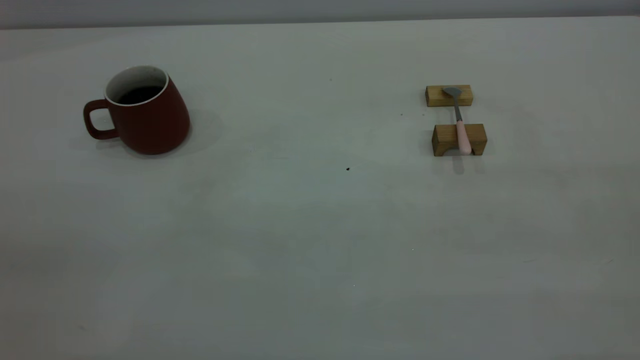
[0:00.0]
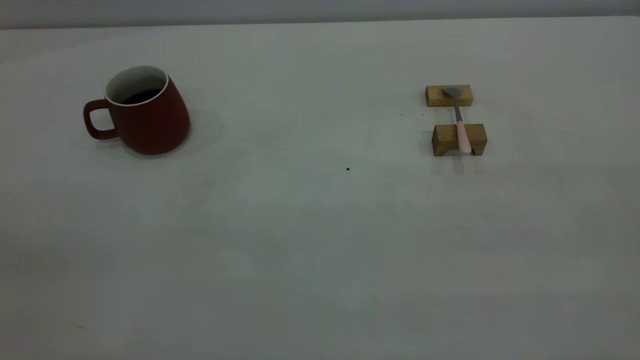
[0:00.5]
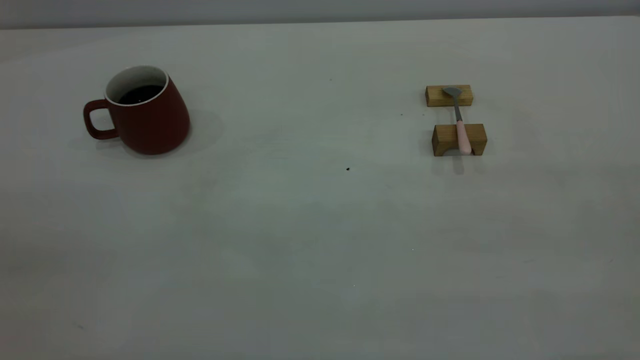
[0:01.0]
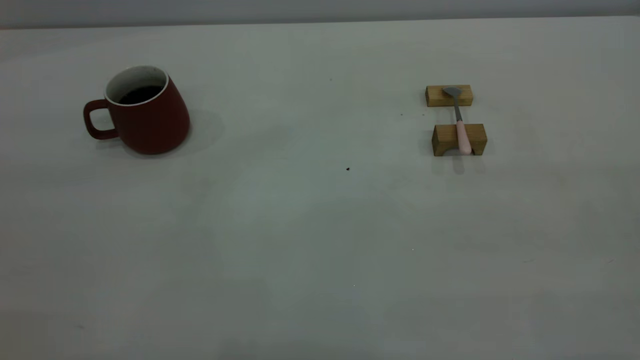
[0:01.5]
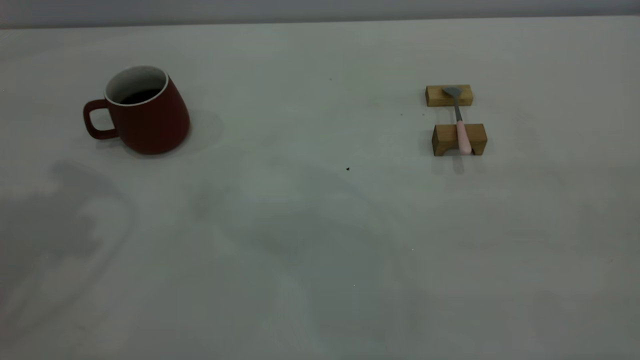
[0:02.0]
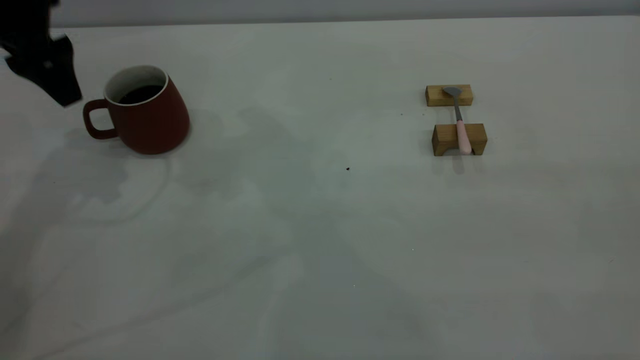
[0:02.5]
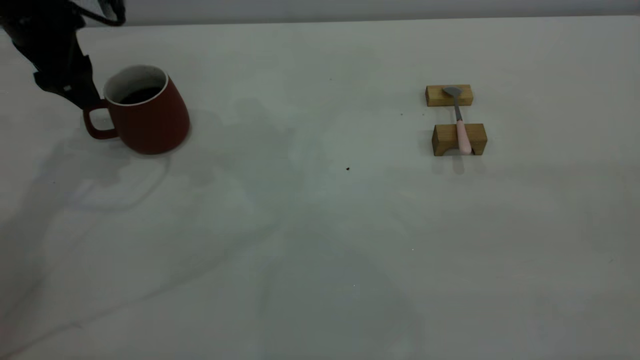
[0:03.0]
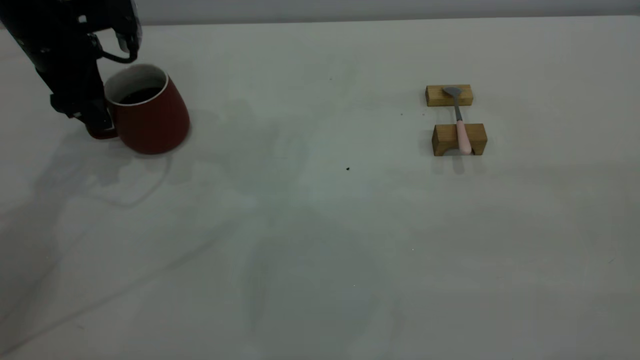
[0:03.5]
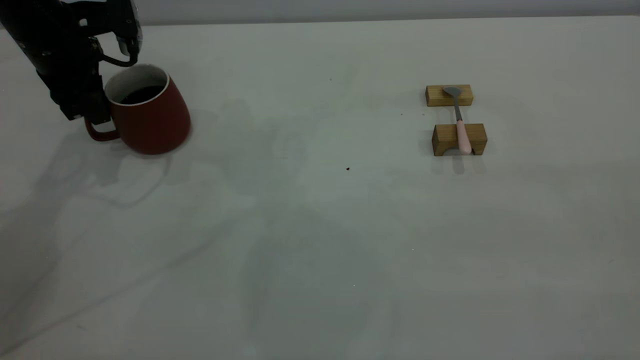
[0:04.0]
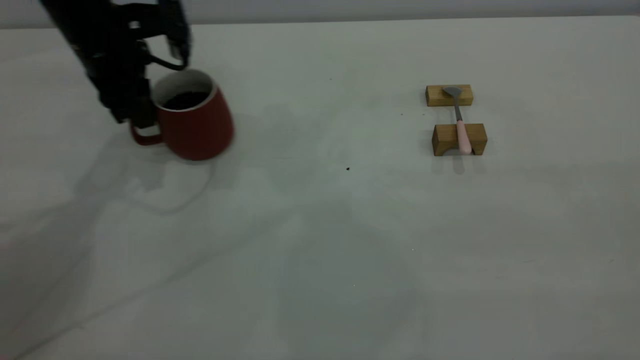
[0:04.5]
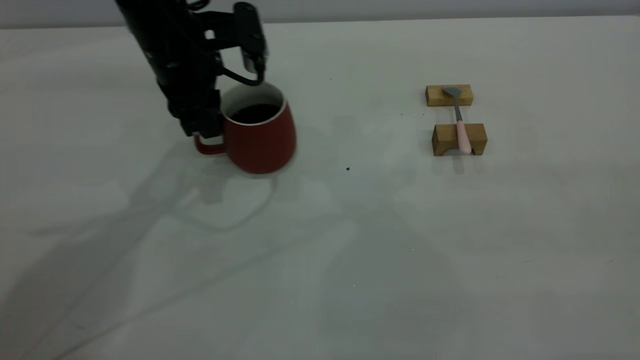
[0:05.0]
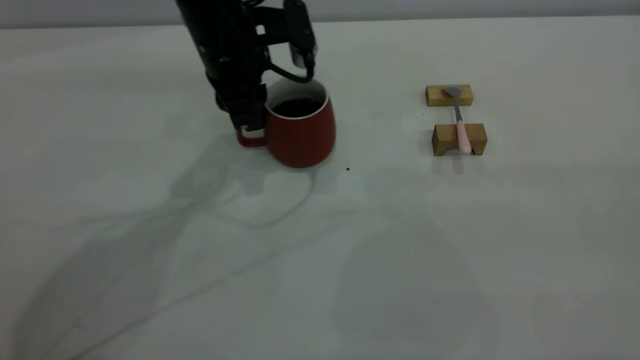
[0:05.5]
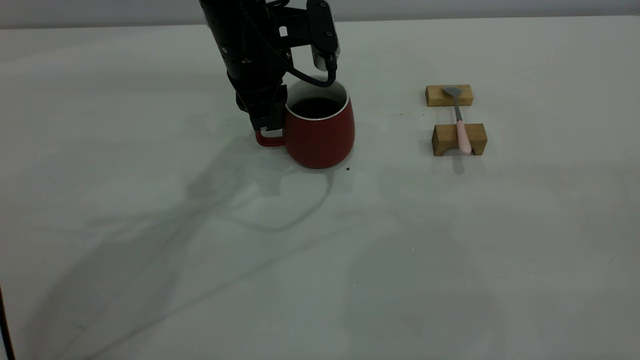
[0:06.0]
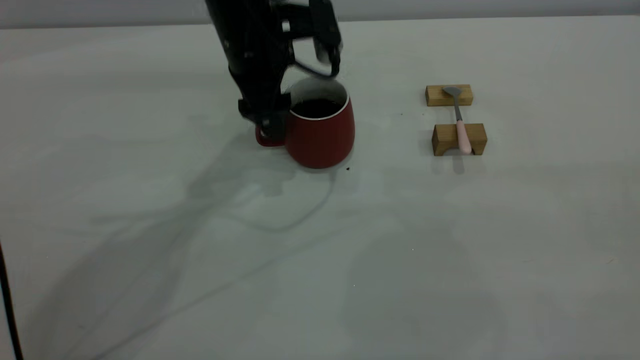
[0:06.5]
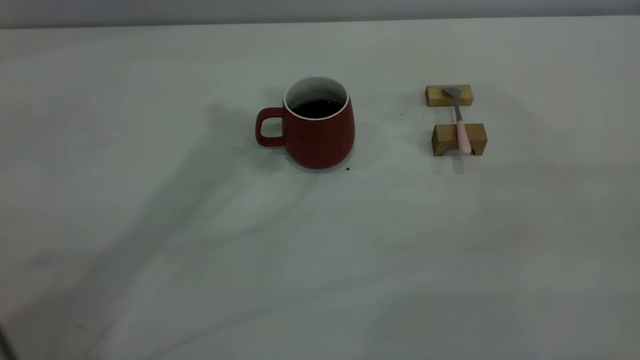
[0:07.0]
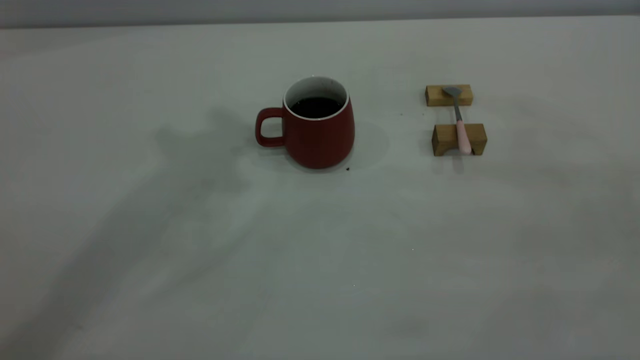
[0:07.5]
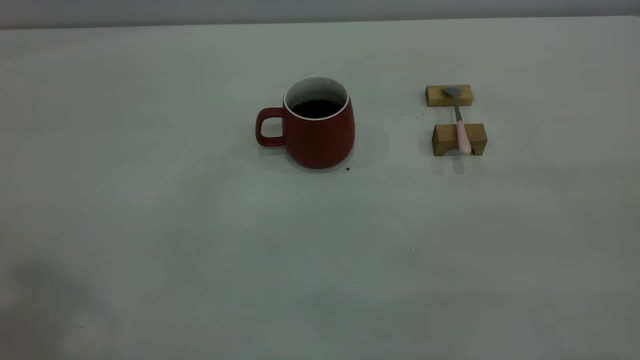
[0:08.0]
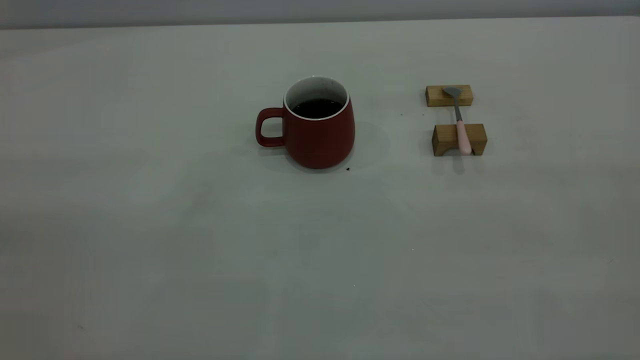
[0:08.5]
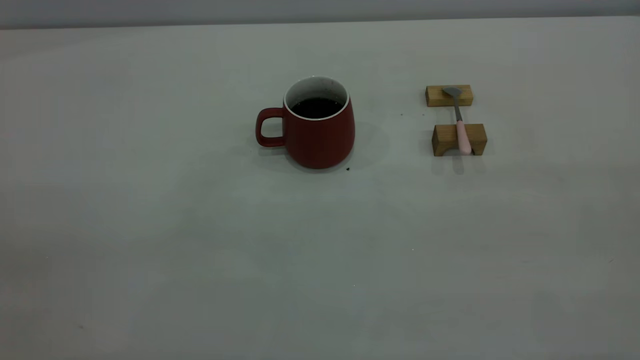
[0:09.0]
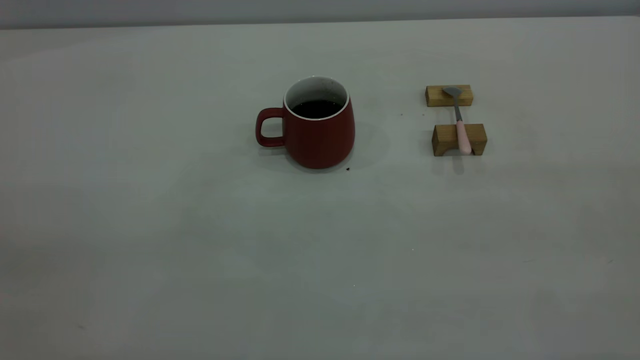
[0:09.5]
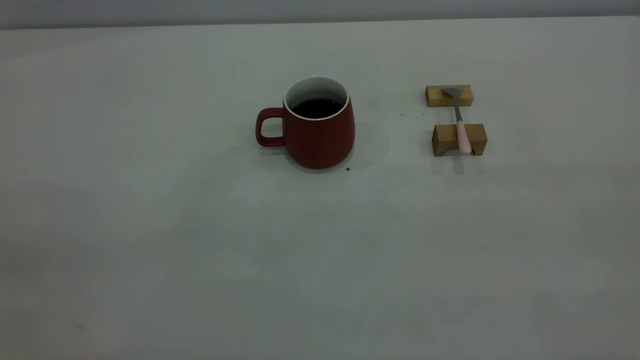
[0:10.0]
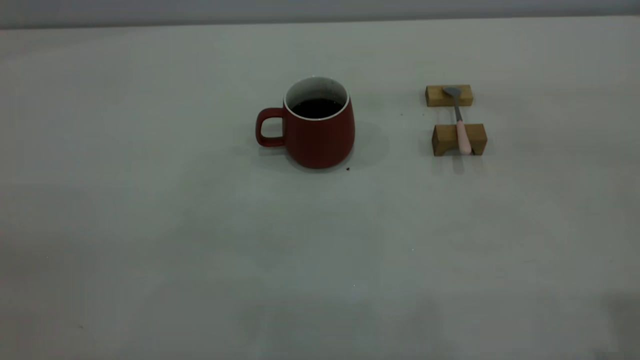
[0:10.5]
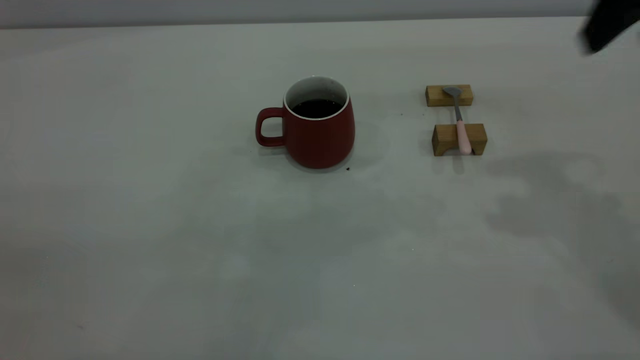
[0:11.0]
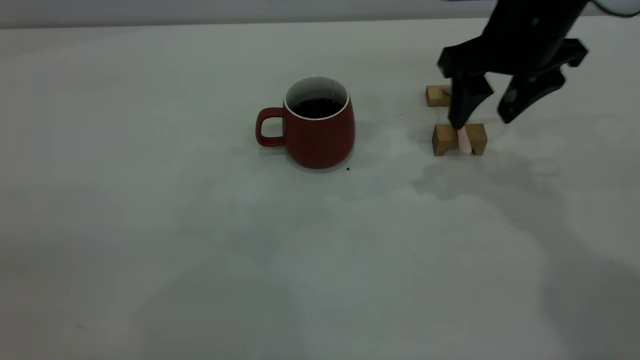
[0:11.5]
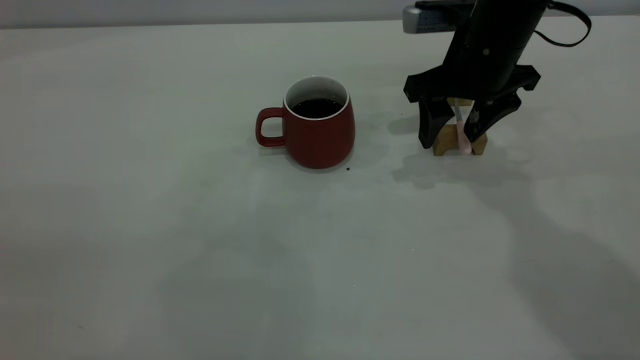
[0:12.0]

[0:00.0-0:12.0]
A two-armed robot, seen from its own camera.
Step, 0:00.0 to 0:06.5: Move the cup with coffee to the center of view.
0:02.0 to 0:04.0: The left gripper moves downward and forward, roughly 25 cm, and closes its fingers.
0:04.0 to 0:06.0: The left gripper is displaced to the right by approximately 20 cm.
0:06.0 to 0:08.0: The left gripper travels upward, backward and to the left by roughly 50 cm, and opens, then closes once more.
0:10.0 to 0:12.0: The right gripper goes roughly 50 cm forward and downward.

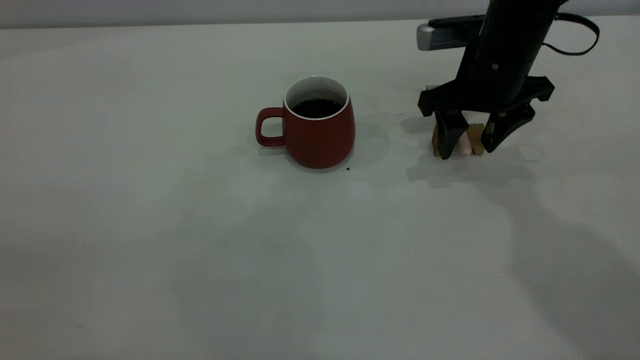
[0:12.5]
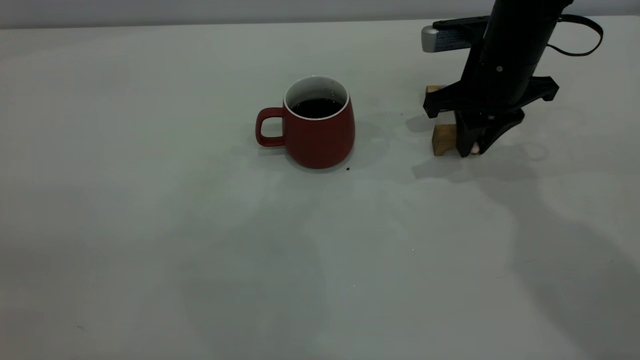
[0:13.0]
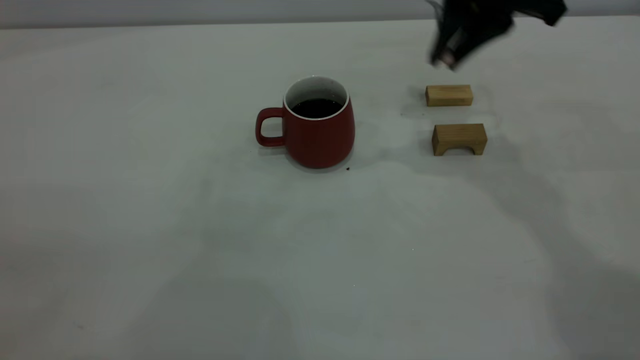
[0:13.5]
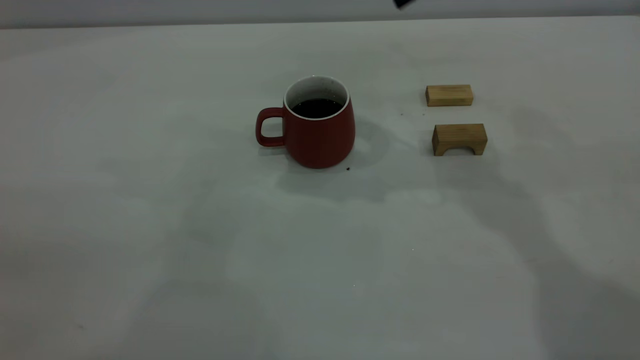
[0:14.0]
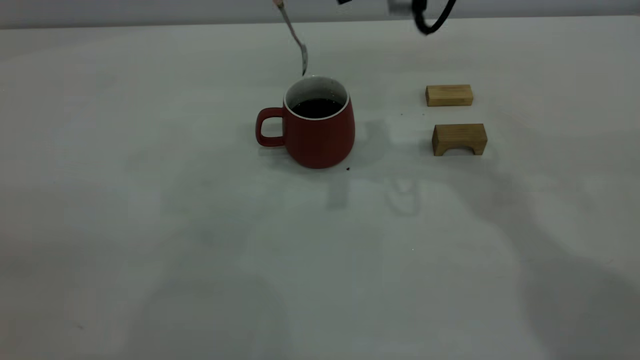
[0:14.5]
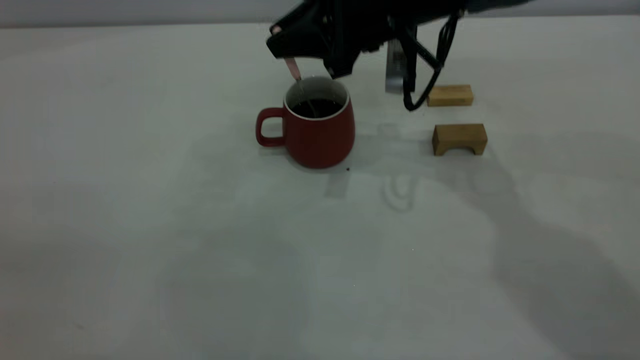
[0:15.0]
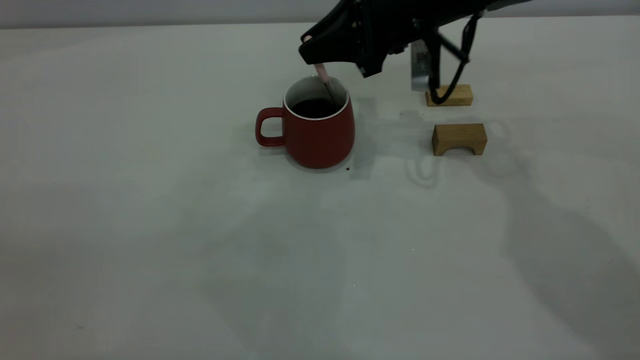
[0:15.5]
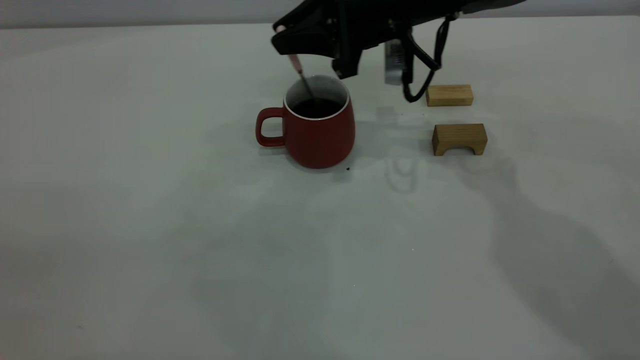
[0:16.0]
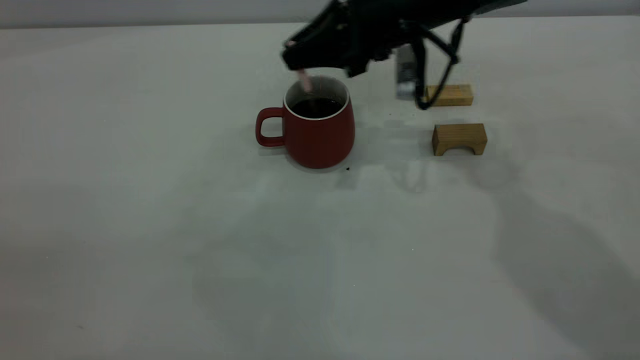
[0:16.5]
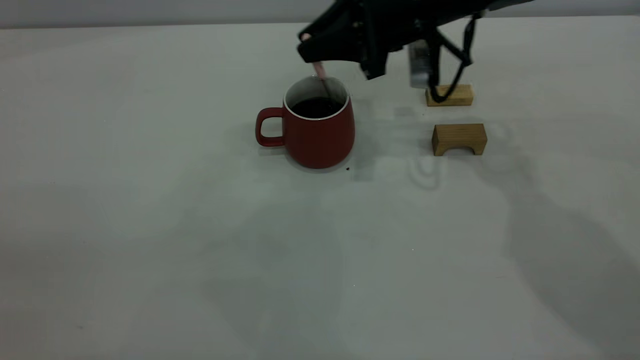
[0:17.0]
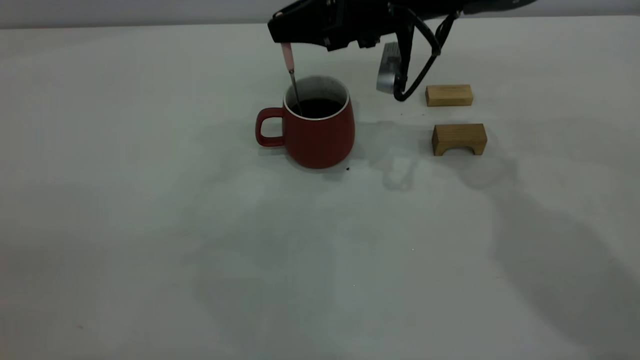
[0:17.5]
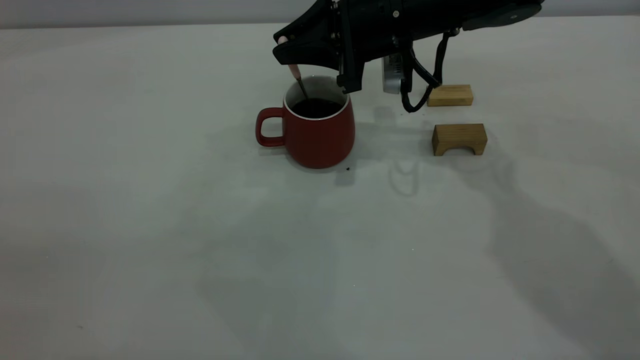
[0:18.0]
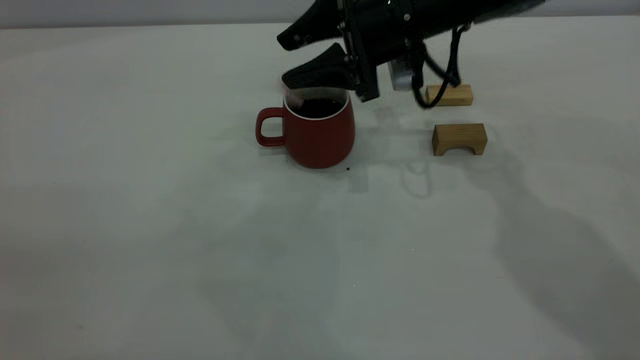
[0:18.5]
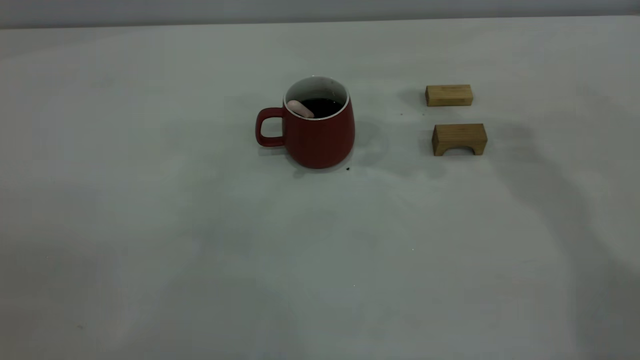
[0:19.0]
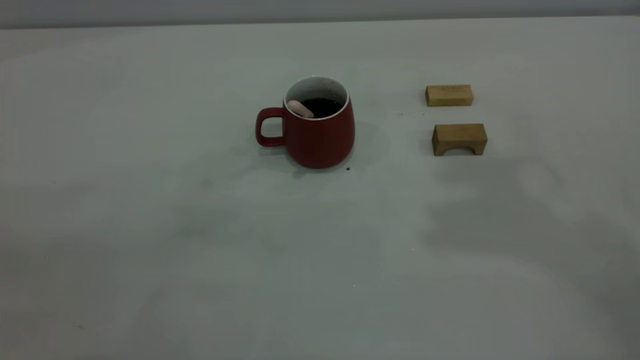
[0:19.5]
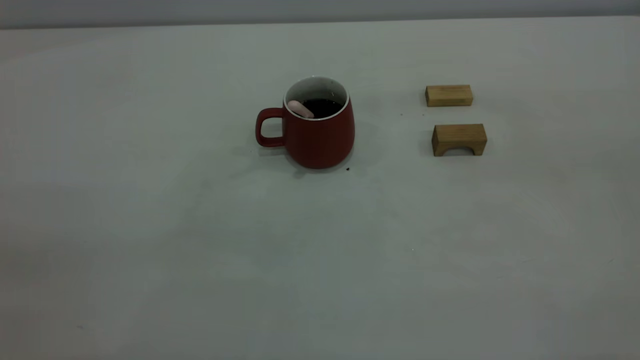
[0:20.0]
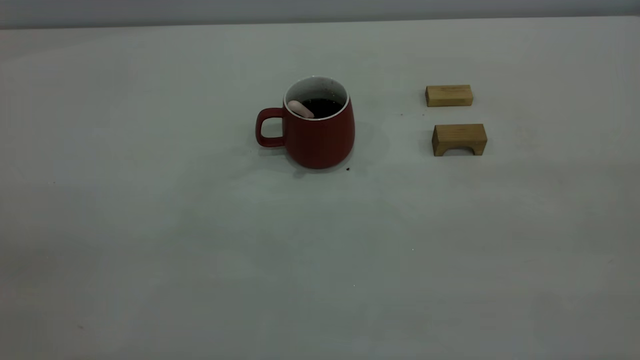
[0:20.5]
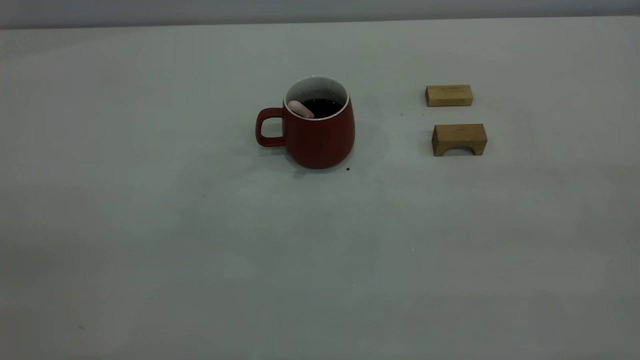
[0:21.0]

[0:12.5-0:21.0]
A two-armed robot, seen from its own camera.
Step, 0:13.5 to 0:18.5: Stir the coffee in the cup.
0:12.5 to 0:14.5: The right gripper shifts some 15 cm upward and to the left, and closes.
0:14.5 to 0:16.5: The right gripper travels downward by approximately 10 cm.
0:16.5 to 0:19.0: The right gripper goes about 20 cm upward, and opens up.
